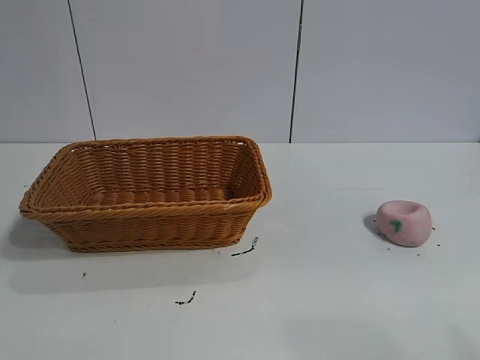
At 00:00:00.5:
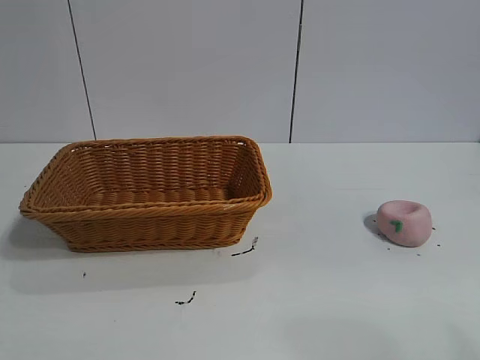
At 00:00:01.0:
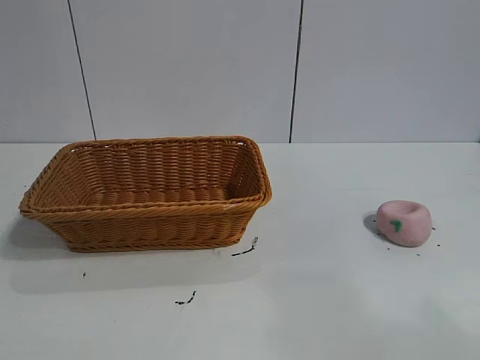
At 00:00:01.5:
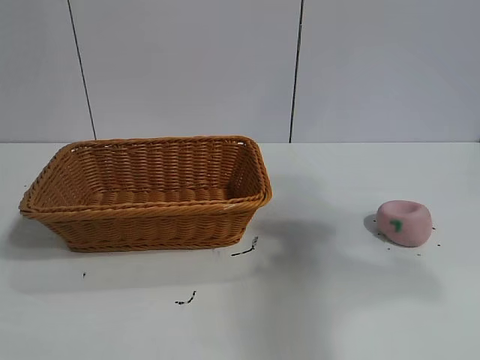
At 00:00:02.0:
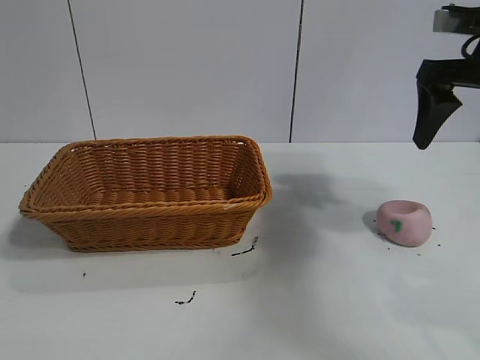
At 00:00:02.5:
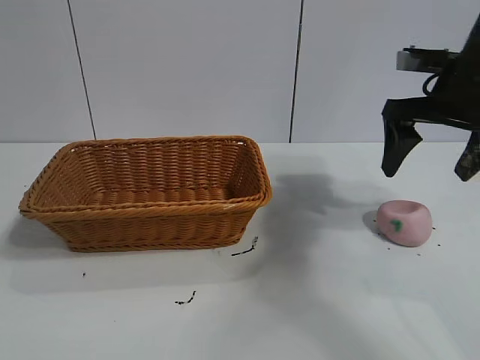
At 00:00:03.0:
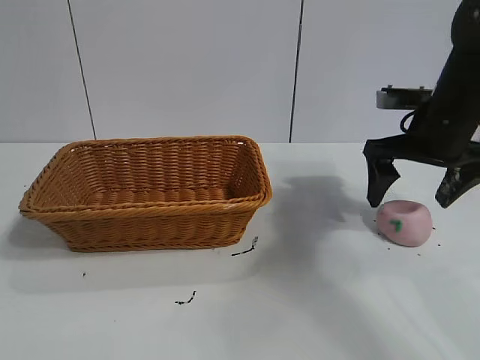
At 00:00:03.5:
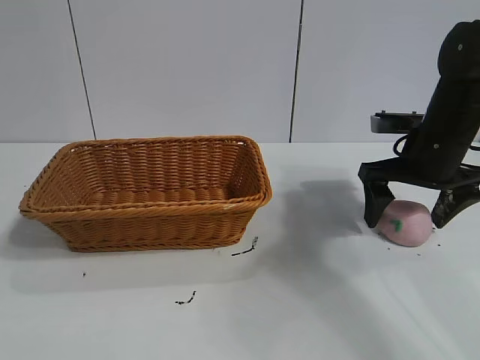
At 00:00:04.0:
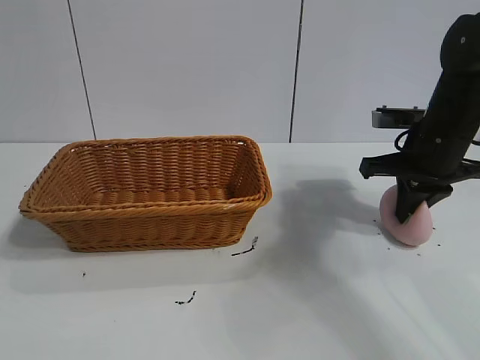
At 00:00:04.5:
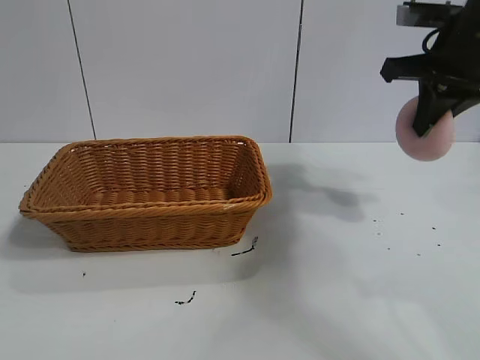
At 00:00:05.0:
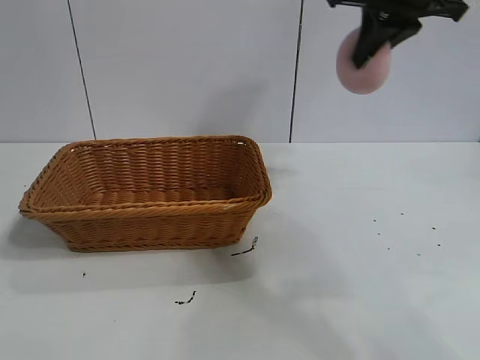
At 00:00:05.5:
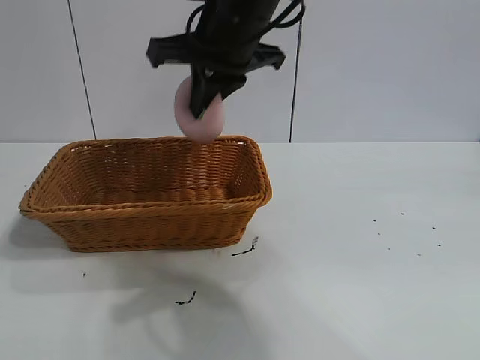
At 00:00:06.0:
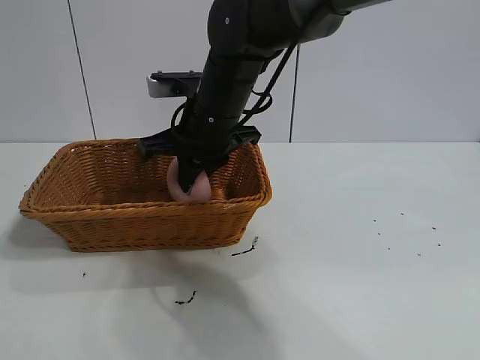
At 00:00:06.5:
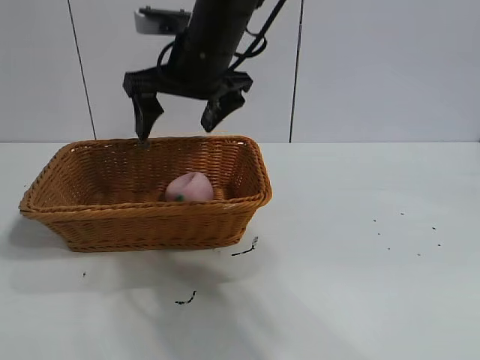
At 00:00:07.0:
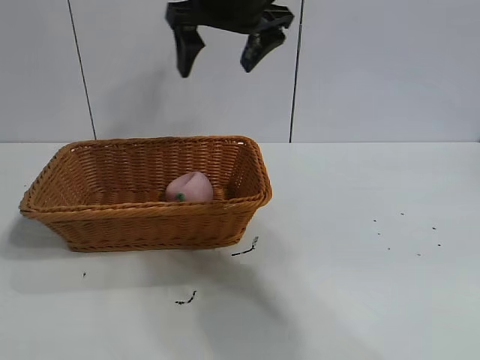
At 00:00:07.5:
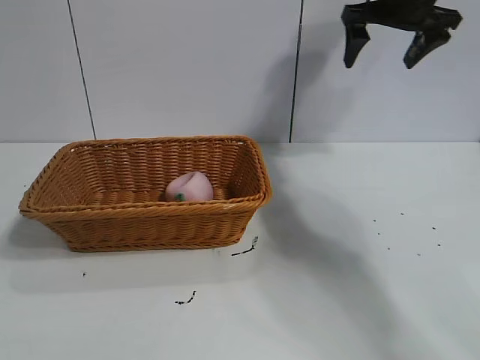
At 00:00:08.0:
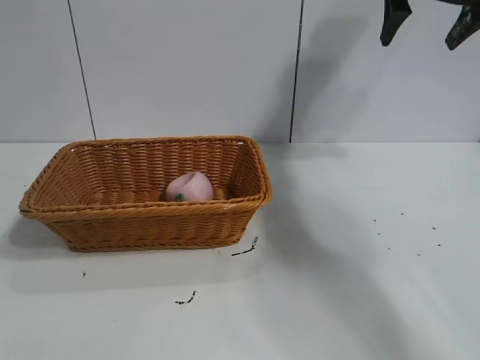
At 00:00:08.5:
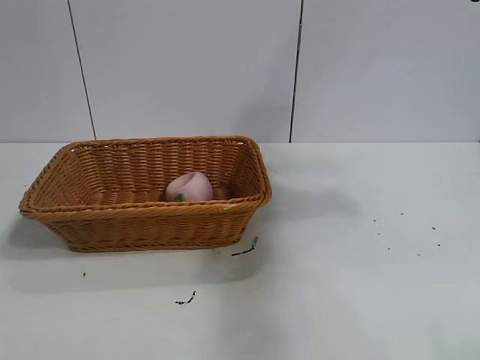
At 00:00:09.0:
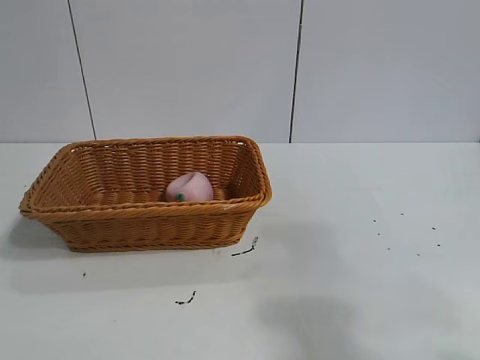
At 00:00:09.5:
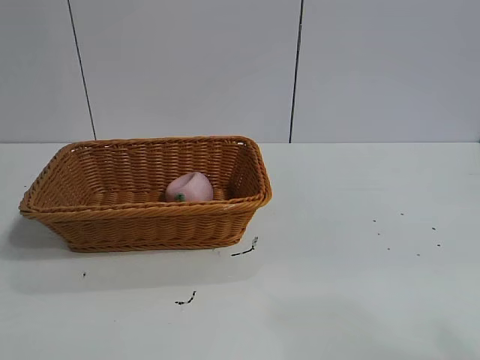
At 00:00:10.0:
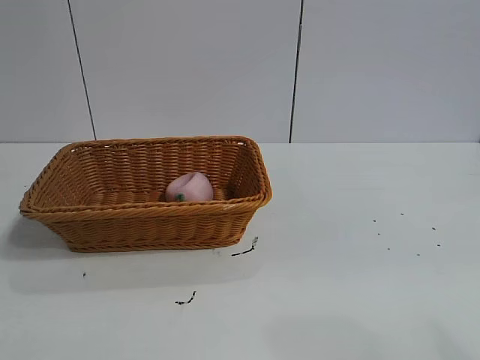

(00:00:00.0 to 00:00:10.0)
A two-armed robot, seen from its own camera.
Task of the whole recording: pick up the peach and put it into the basket.
Step, 00:00:01.0 - 00:00:03.5: Grasp the peach with right gripper.
Step, 00:00:04.0 - 00:00:06.0: Place the peach in the basket with right gripper.

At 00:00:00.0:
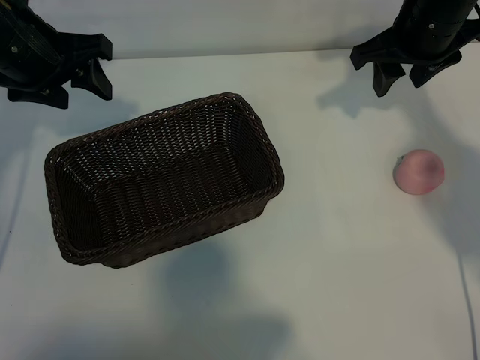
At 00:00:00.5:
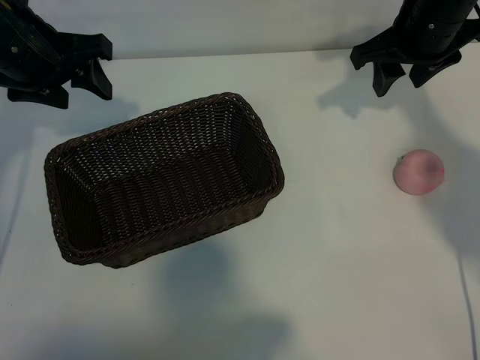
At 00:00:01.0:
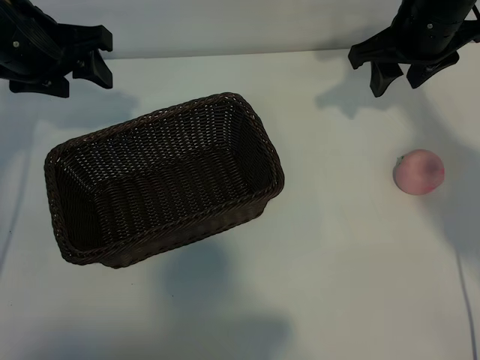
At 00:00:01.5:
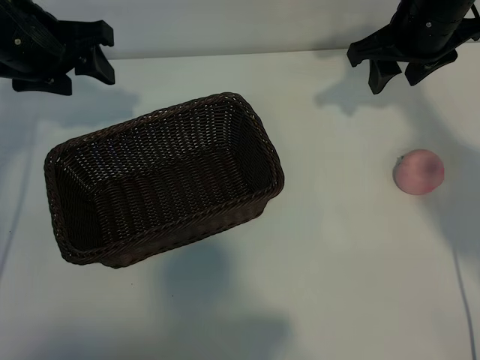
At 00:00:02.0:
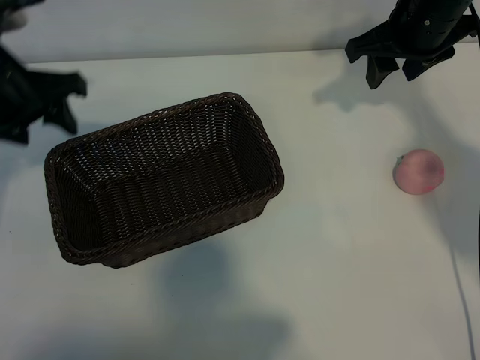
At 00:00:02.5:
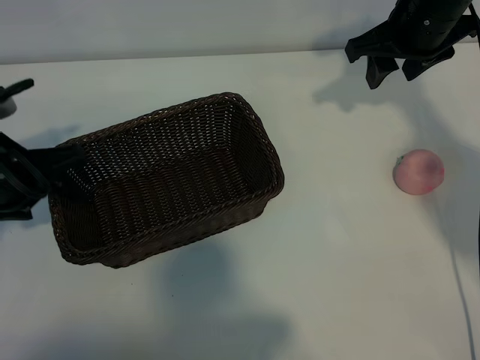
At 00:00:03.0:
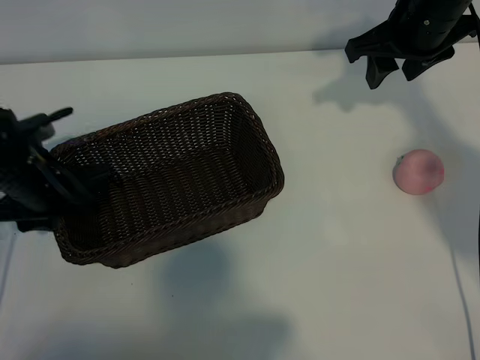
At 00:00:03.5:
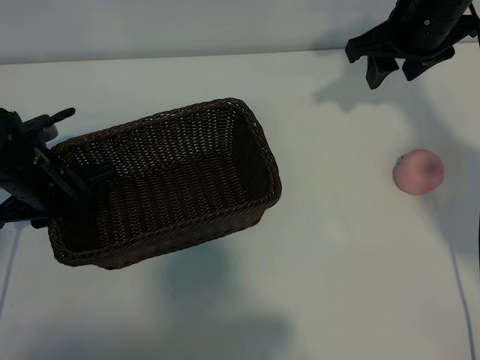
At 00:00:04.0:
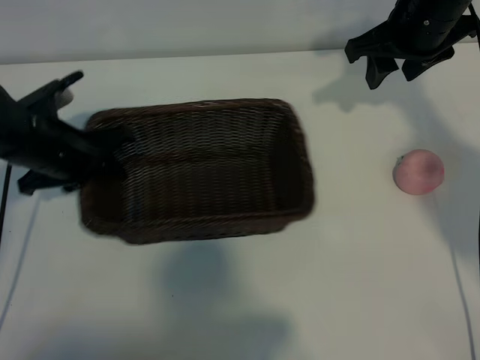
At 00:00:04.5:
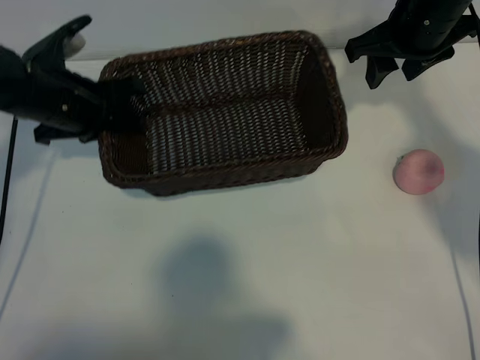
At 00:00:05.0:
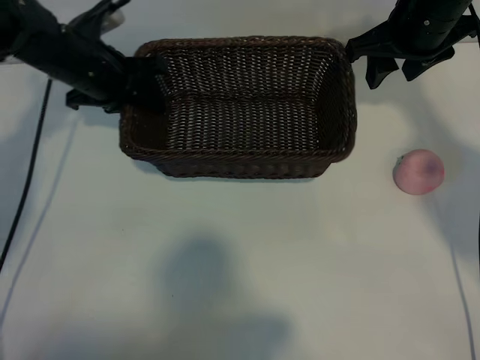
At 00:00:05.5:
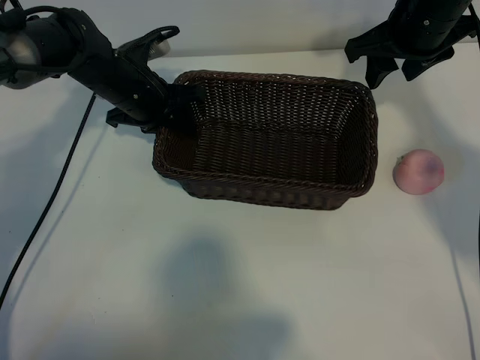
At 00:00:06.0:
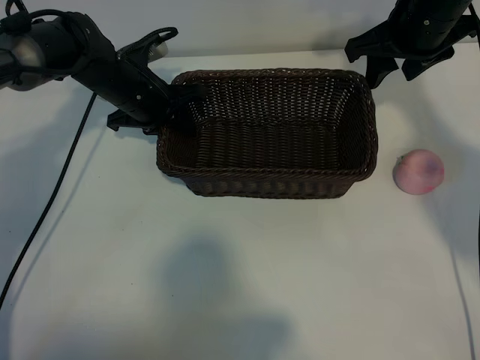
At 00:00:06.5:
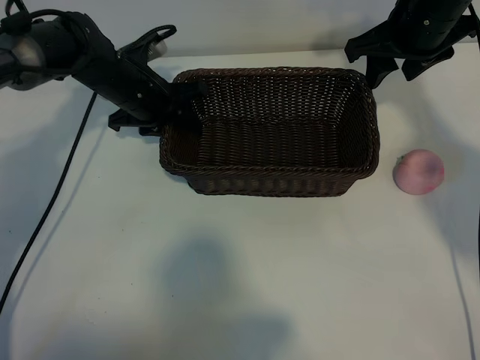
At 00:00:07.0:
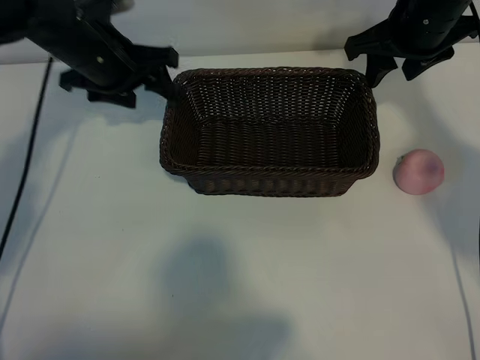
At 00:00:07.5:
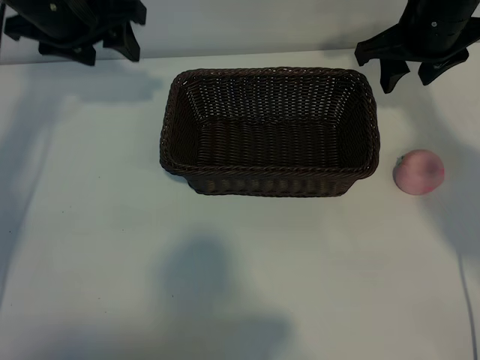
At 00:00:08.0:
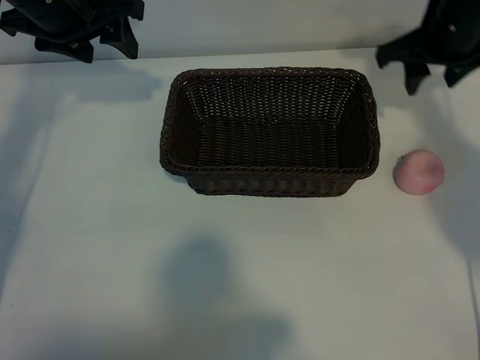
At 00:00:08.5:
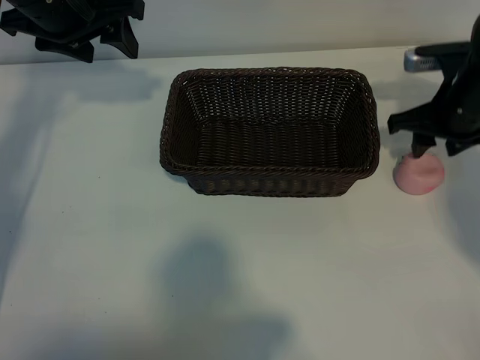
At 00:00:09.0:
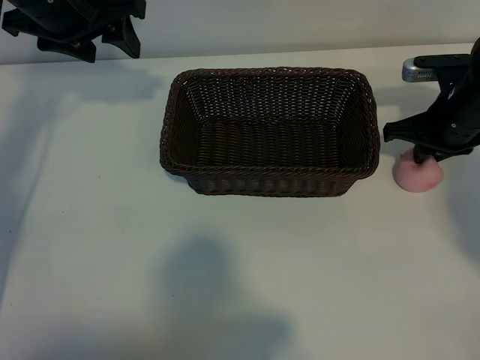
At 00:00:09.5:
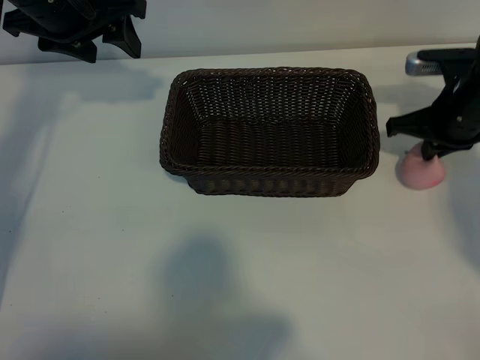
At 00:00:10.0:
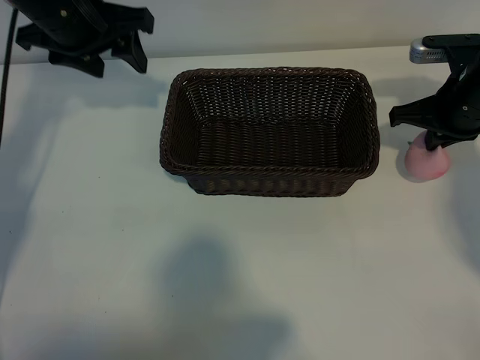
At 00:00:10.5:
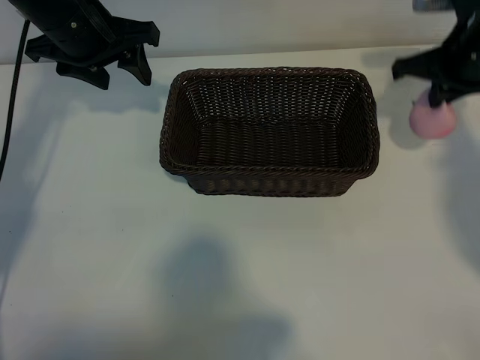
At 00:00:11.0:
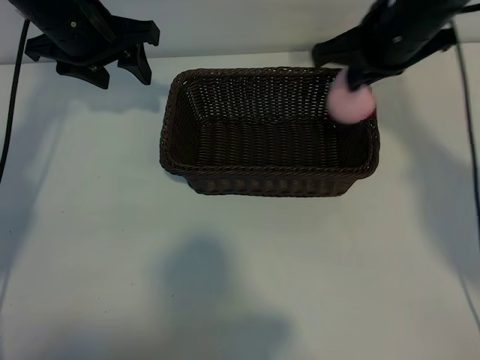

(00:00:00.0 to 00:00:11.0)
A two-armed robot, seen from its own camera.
Task of the whole recording: pick up the peach and put it into the basket.
Step, 00:00:01.0 - 00:00:03.0: Grasp the basket with left gripper.
Step, 00:00:04.0 - 00:00:06.5: Place the basket in the center of view with left gripper.
Step, 00:00:07.0 - 00:00:09.0: Grasp the peach with right gripper.
